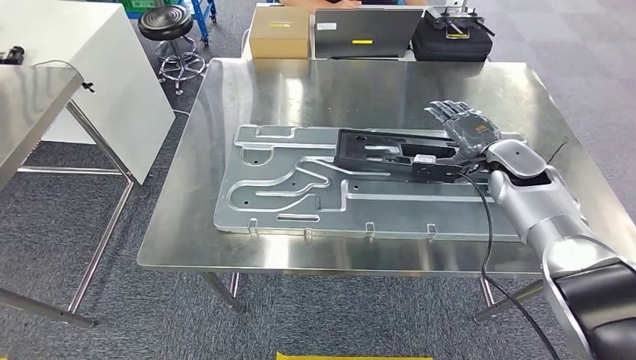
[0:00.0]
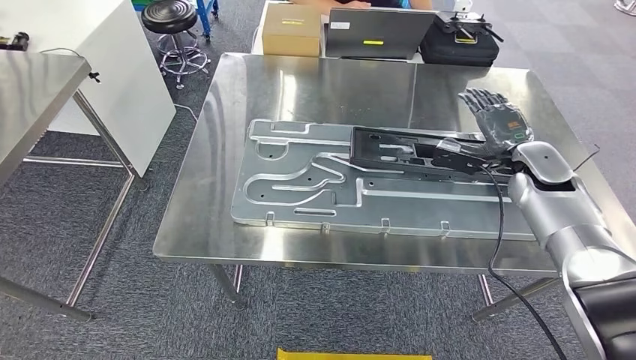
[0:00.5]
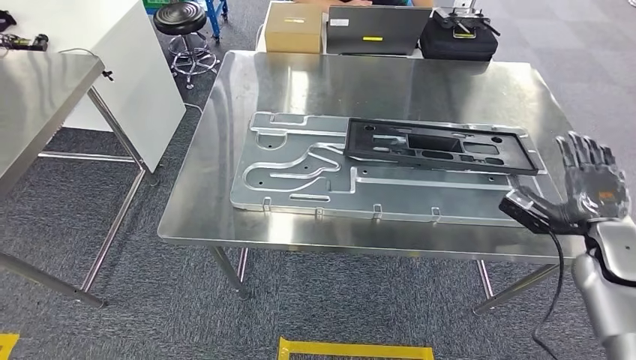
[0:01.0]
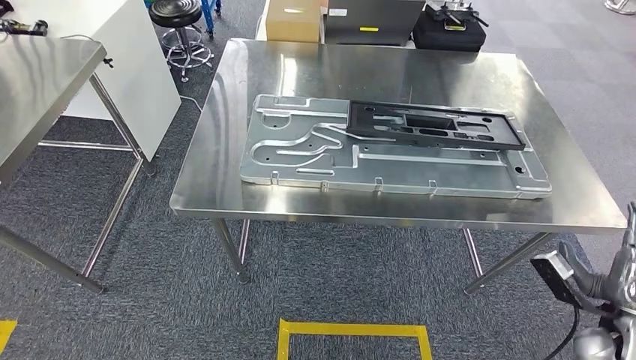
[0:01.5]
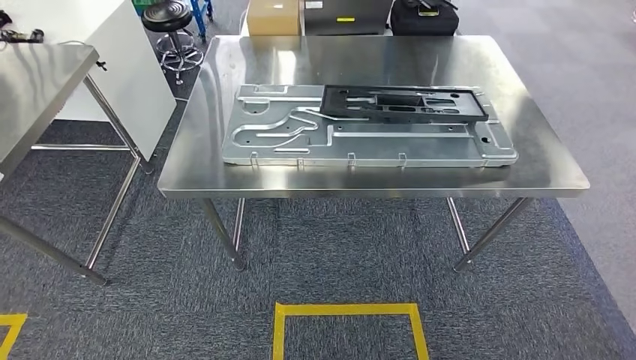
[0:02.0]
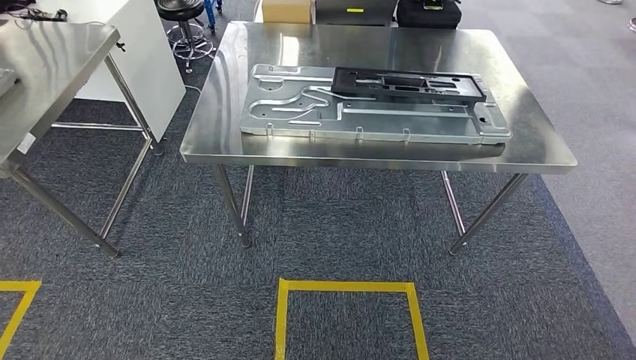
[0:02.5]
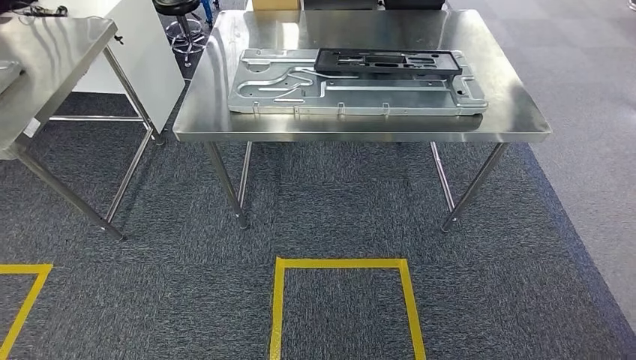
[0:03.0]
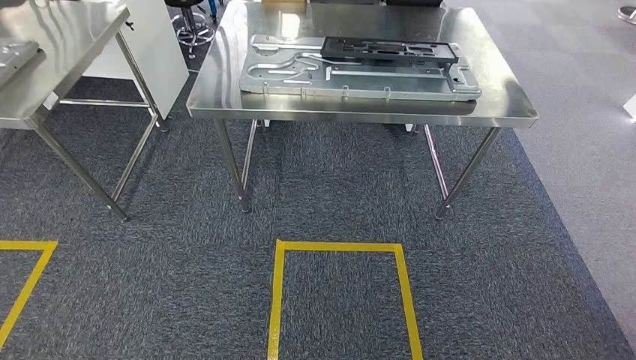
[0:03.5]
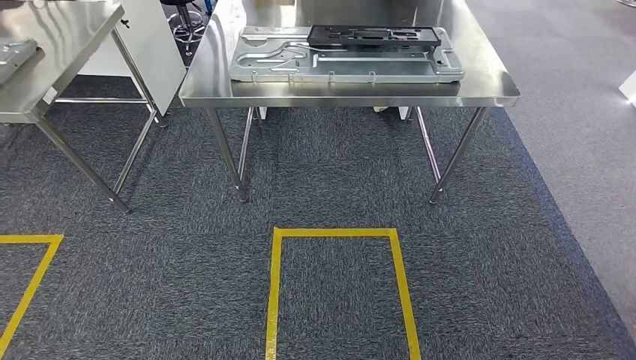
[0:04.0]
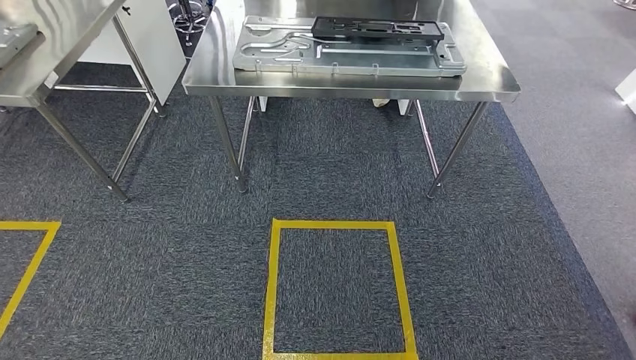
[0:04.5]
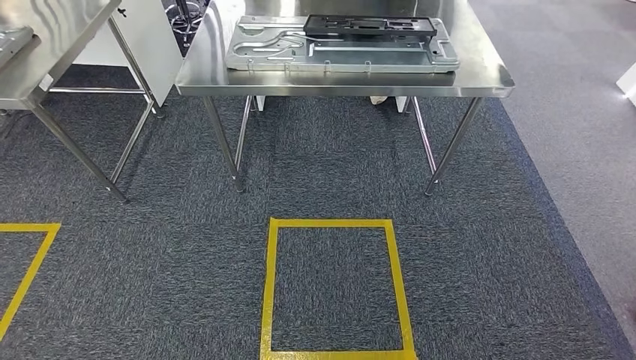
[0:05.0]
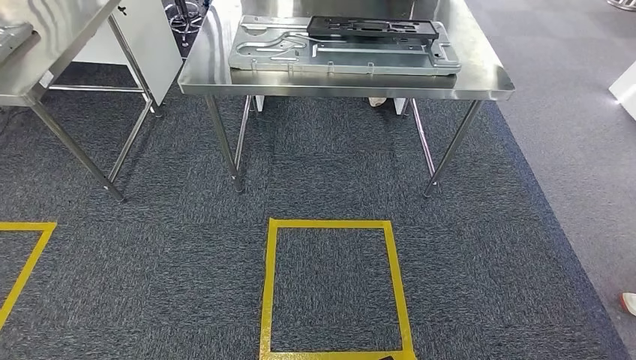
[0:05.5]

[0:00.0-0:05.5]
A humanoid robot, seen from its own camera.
Step, 0:03.0 to 0:05.5: Move to the initial position of the shelf.

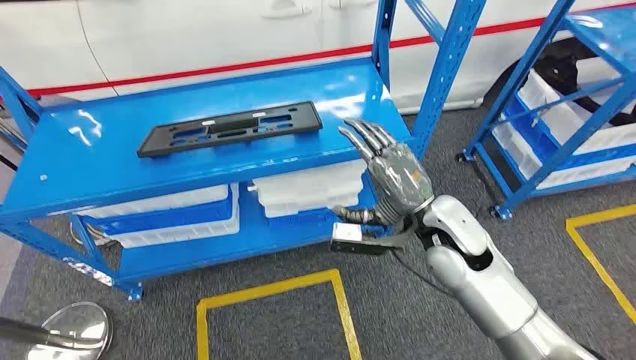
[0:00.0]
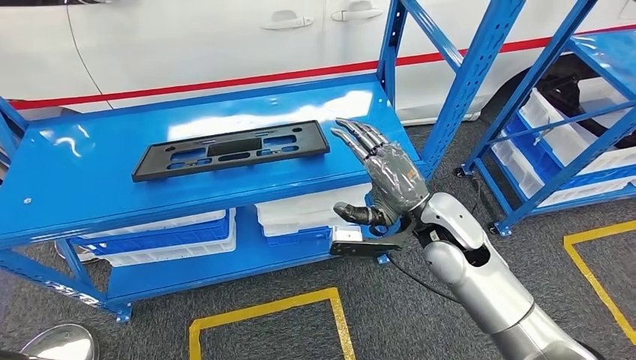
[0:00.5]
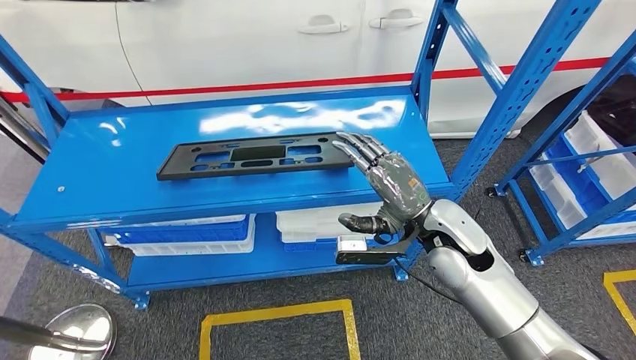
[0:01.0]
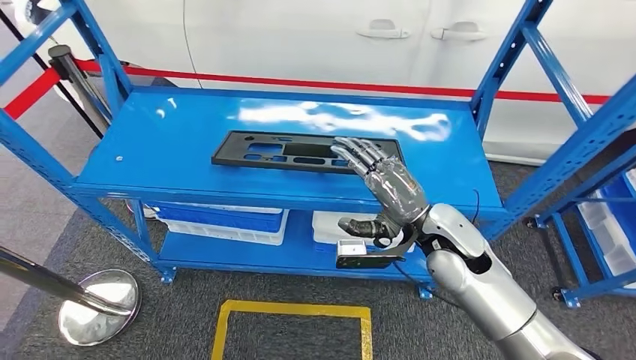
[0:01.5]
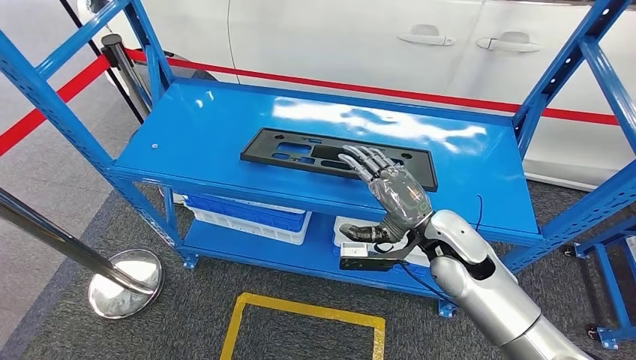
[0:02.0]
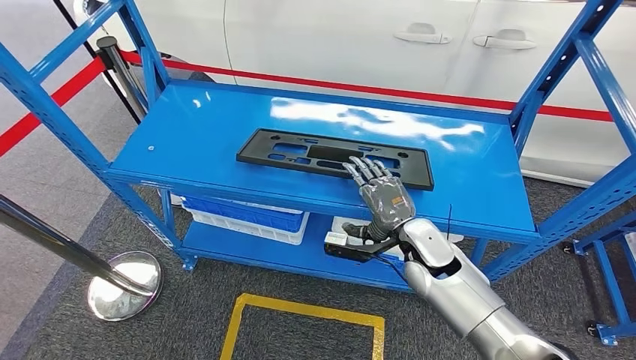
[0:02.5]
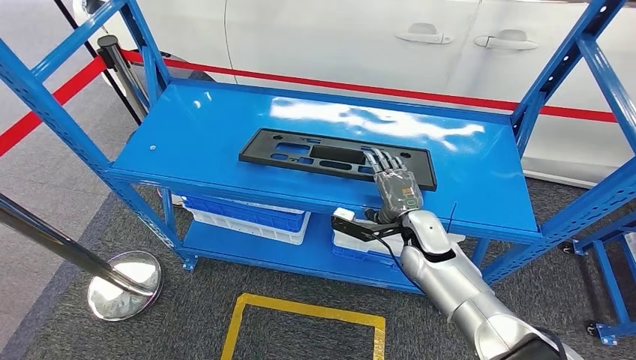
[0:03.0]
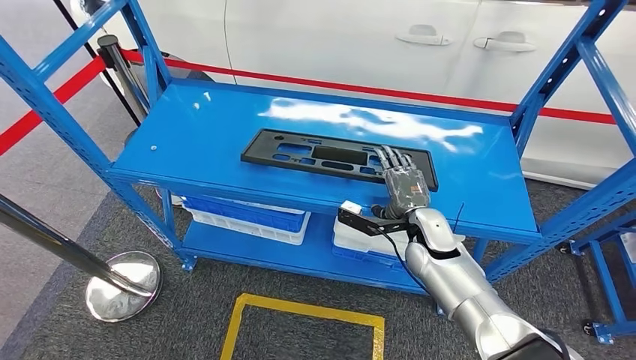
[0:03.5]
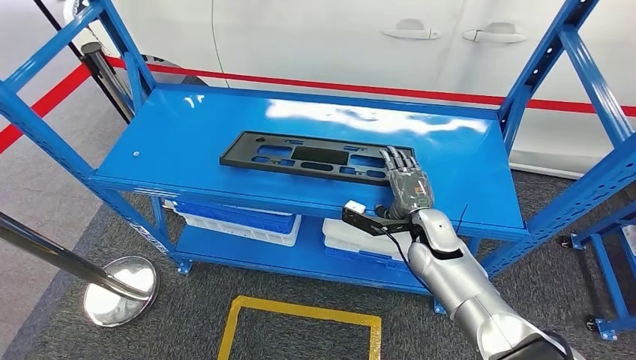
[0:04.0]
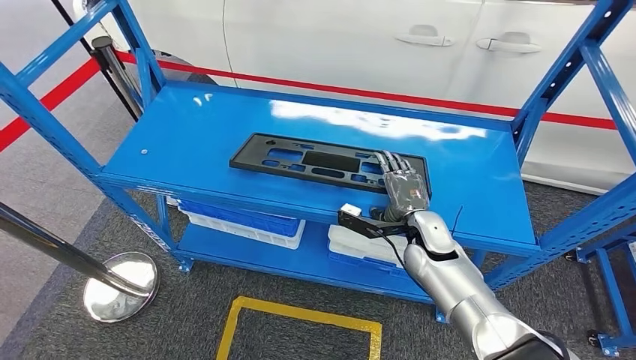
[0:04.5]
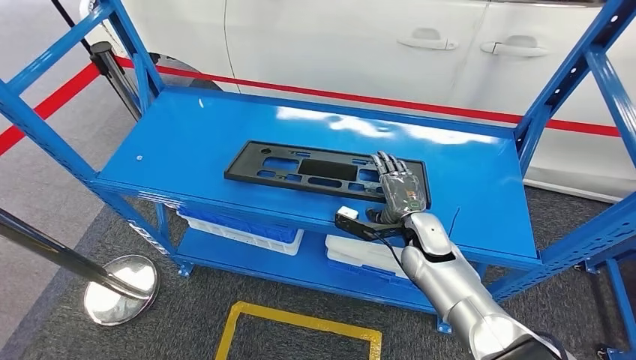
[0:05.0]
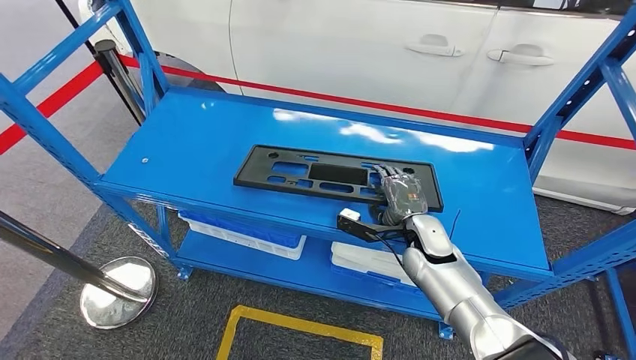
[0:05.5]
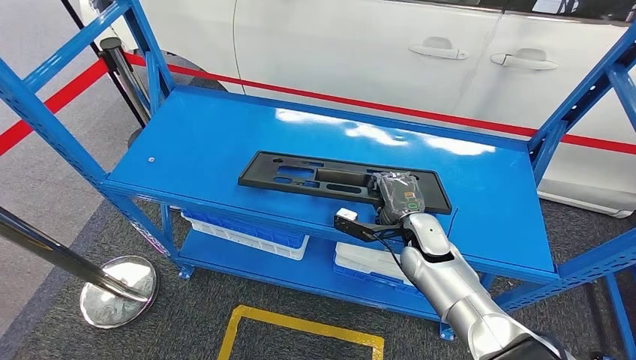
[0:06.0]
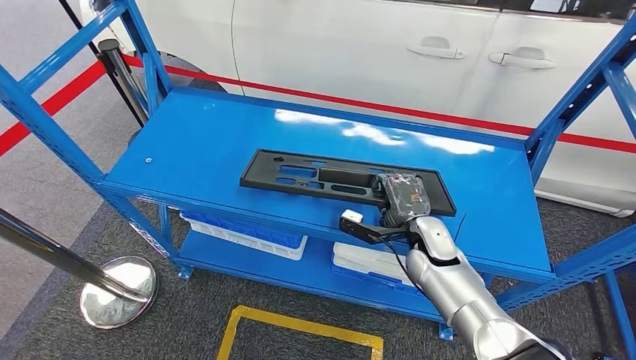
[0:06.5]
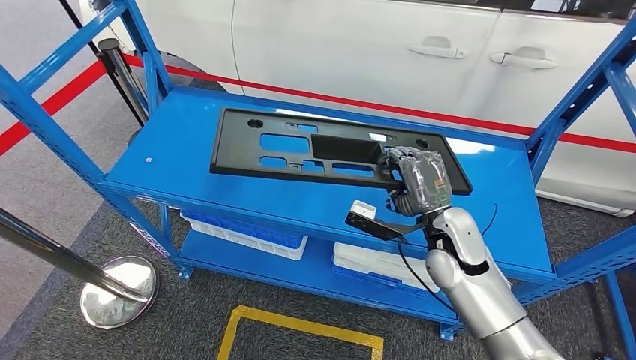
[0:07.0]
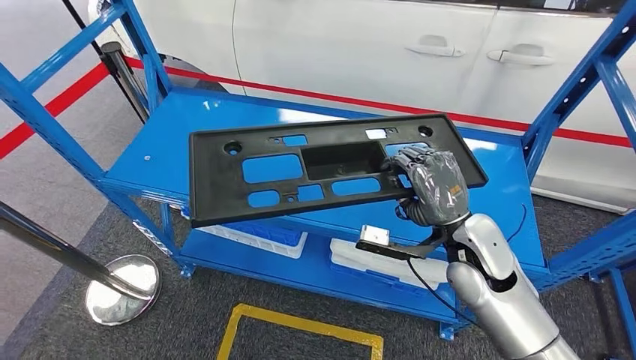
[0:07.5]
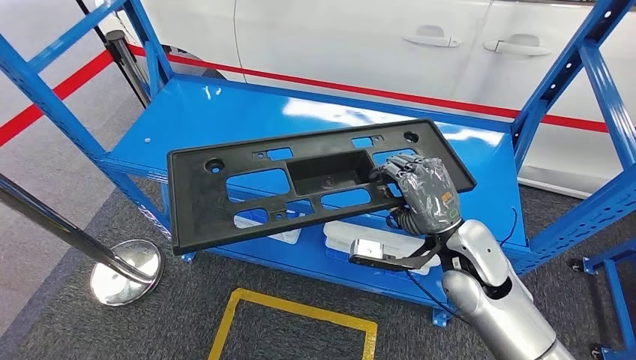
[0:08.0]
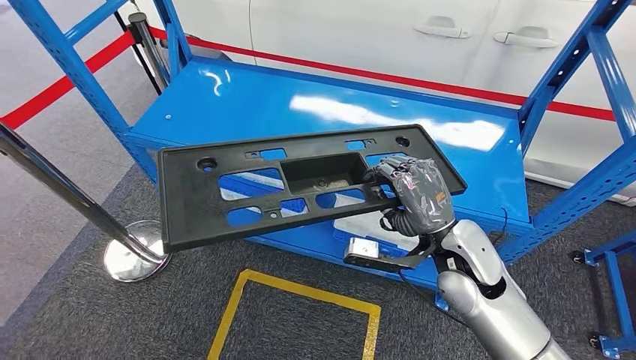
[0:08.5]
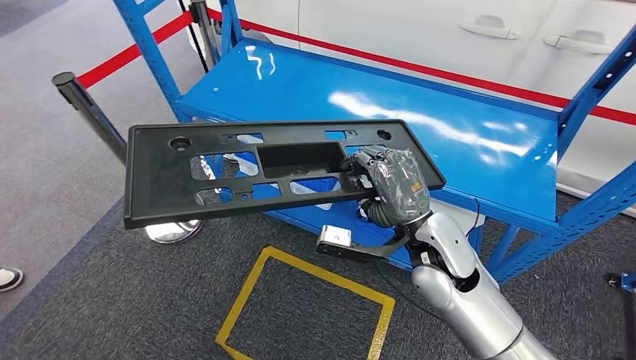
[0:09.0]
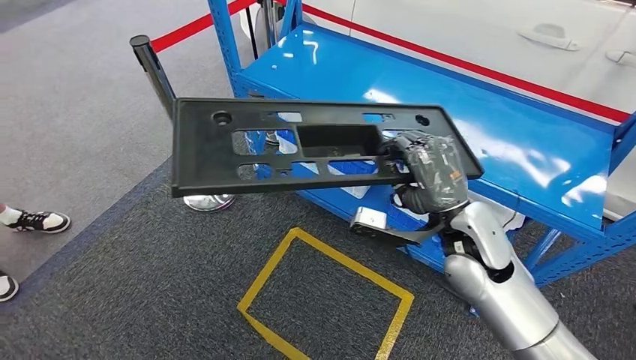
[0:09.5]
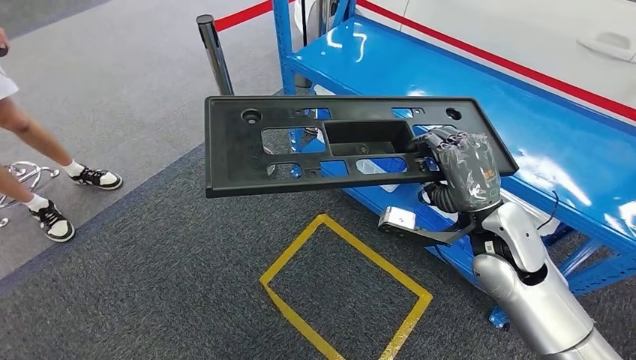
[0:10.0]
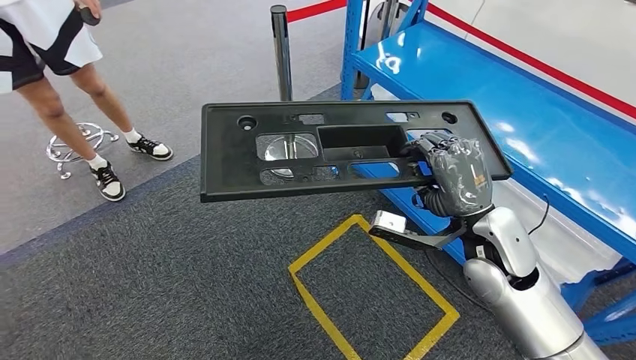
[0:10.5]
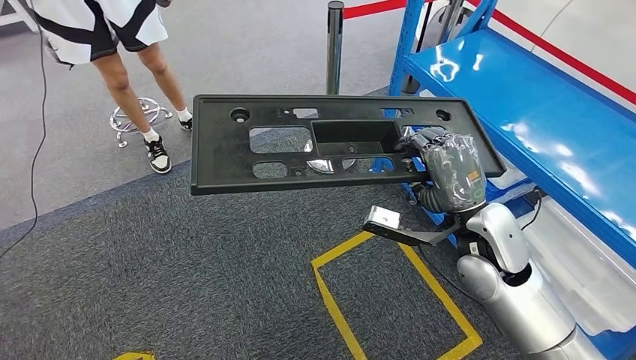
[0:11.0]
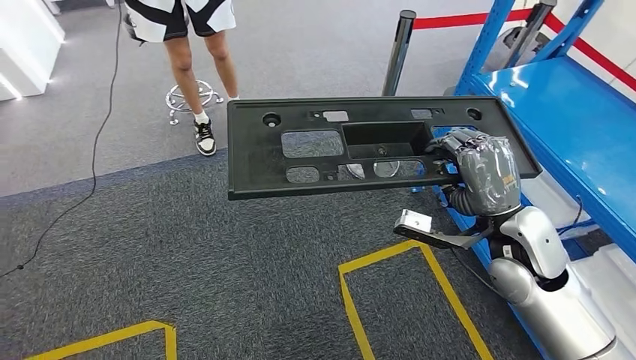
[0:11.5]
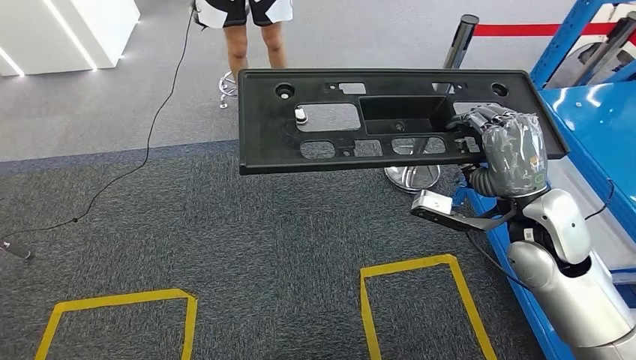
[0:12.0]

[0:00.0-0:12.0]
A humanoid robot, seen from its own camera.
Step, 0:00.0 to 0:08.0: Pick up the large material from the shelf.

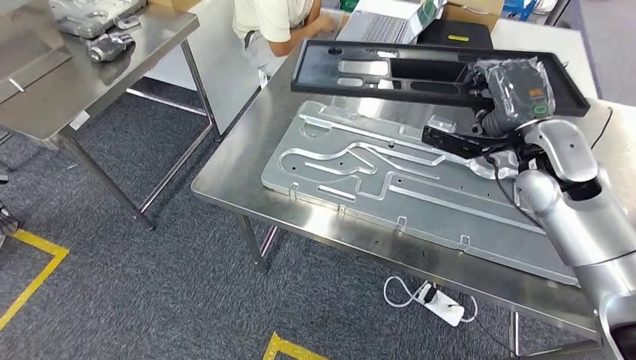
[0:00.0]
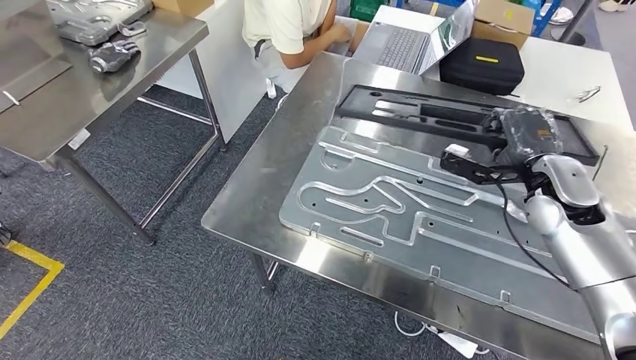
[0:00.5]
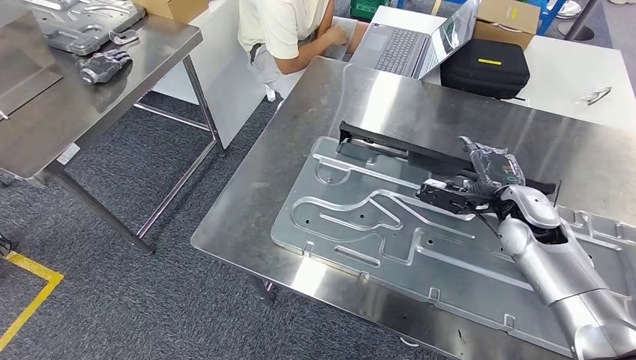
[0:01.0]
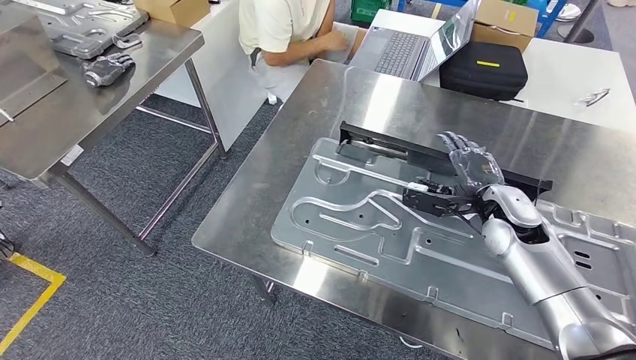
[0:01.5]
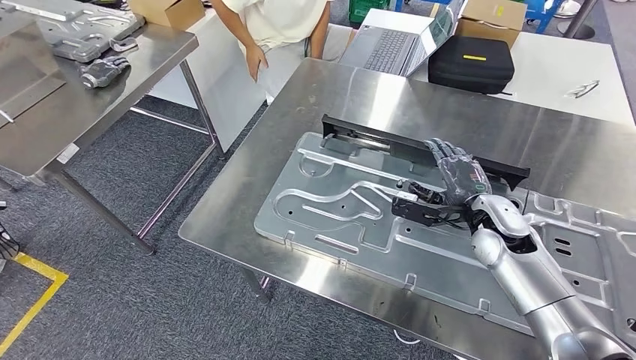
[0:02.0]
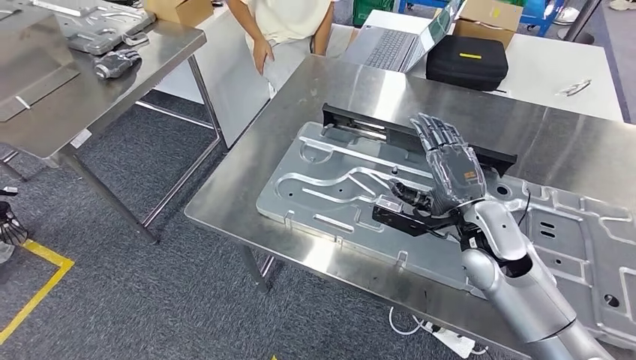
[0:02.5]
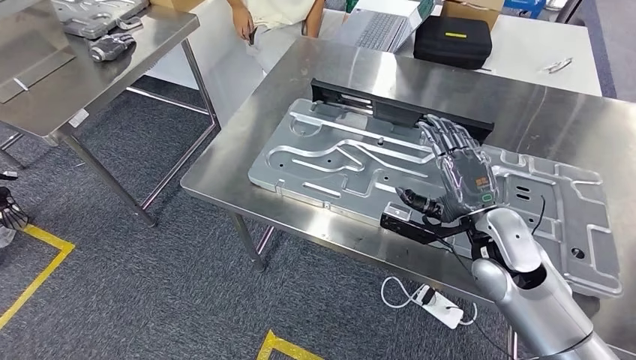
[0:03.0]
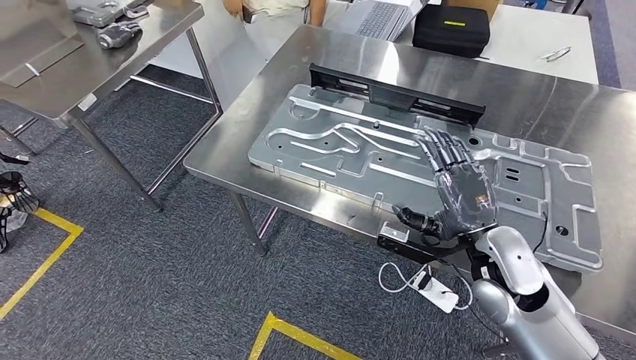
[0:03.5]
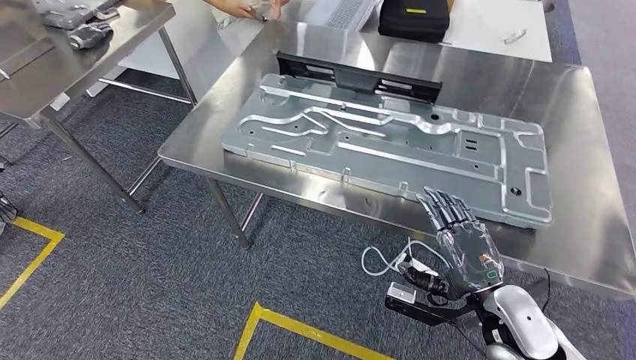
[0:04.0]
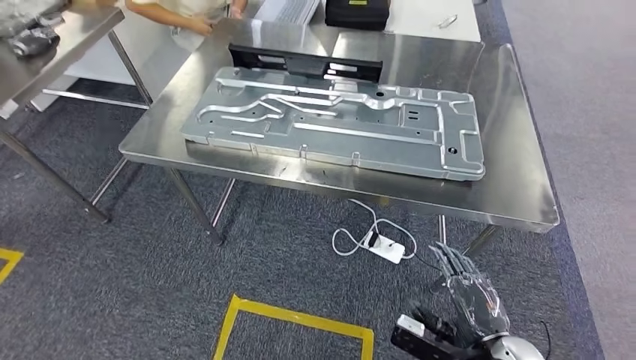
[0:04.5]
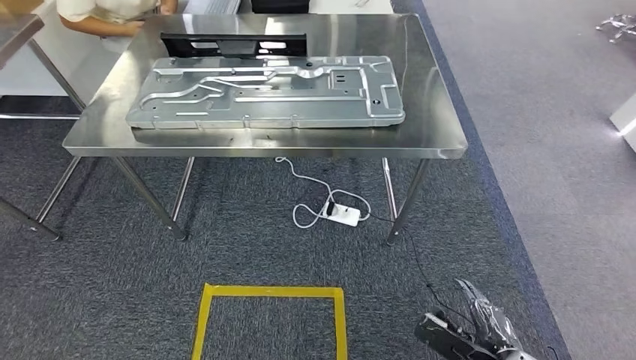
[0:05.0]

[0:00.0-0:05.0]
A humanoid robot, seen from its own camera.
Step, 0:00.0 to 0:04.5: Insert the large material into the corresponding slot on the workbench.
